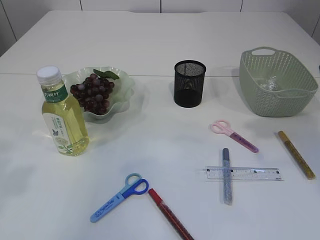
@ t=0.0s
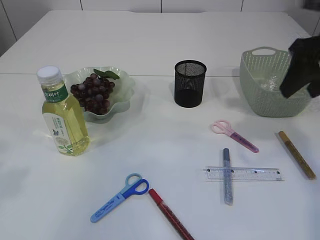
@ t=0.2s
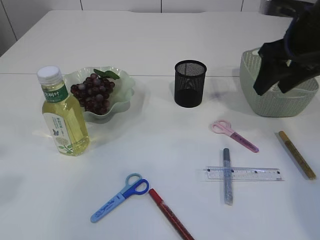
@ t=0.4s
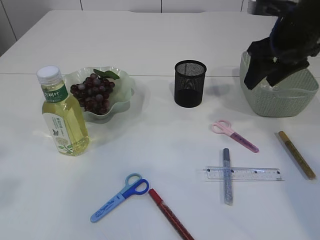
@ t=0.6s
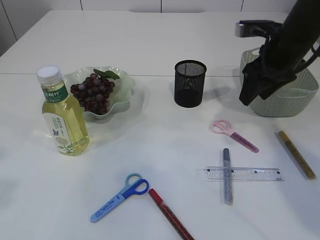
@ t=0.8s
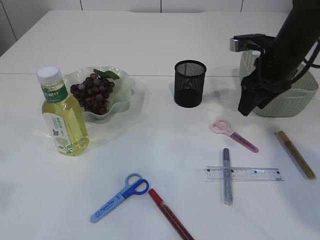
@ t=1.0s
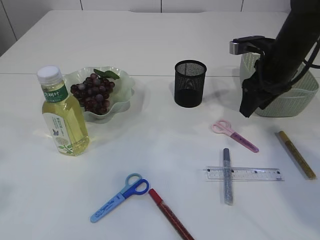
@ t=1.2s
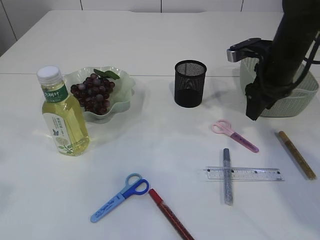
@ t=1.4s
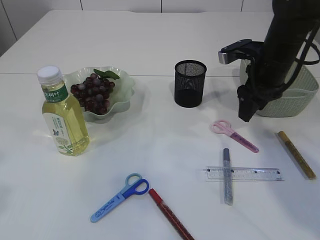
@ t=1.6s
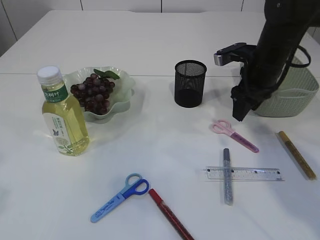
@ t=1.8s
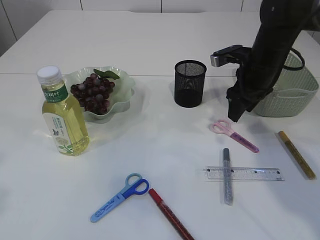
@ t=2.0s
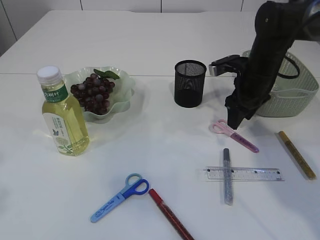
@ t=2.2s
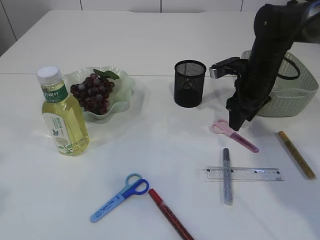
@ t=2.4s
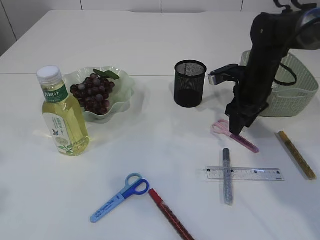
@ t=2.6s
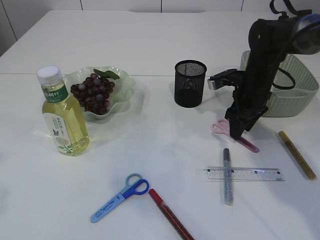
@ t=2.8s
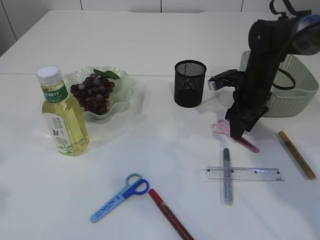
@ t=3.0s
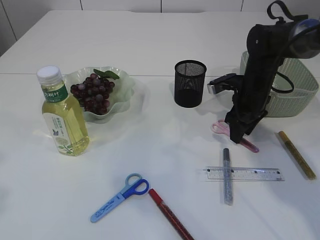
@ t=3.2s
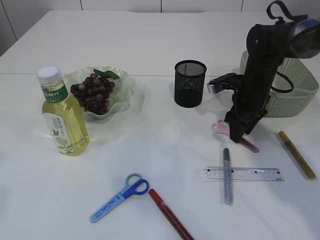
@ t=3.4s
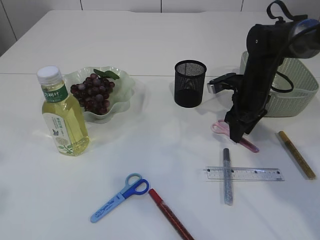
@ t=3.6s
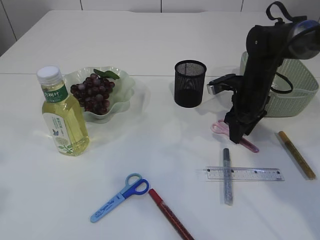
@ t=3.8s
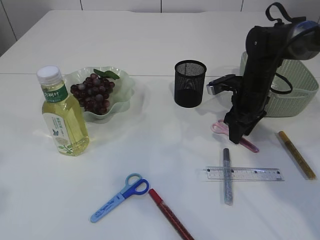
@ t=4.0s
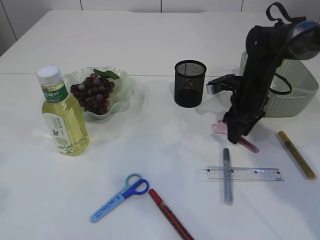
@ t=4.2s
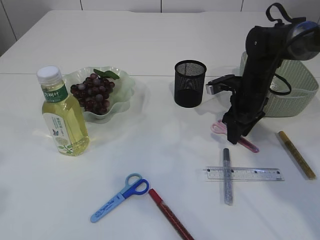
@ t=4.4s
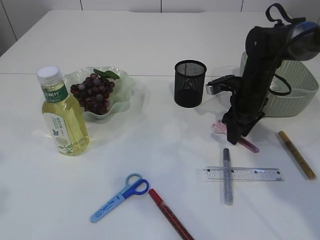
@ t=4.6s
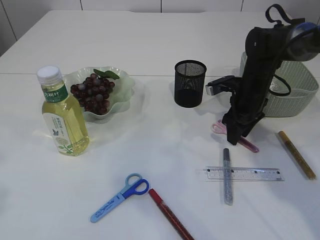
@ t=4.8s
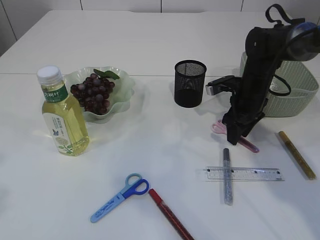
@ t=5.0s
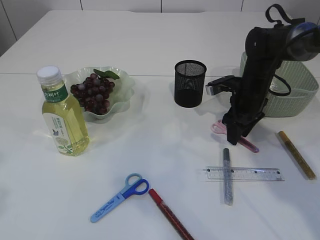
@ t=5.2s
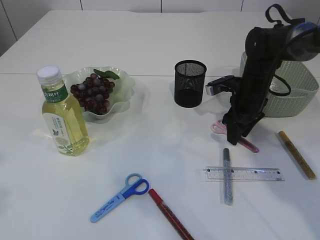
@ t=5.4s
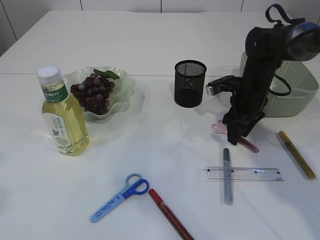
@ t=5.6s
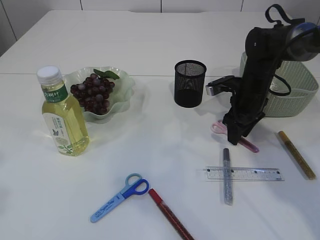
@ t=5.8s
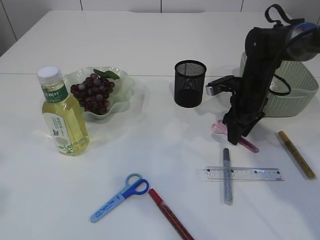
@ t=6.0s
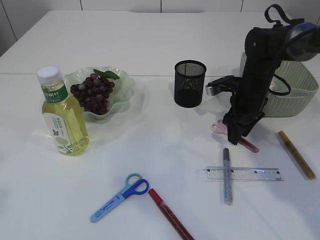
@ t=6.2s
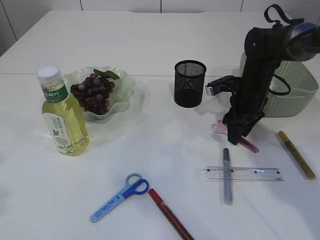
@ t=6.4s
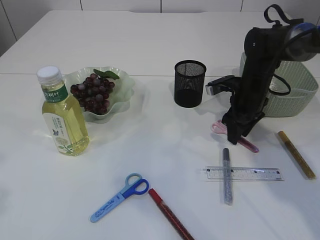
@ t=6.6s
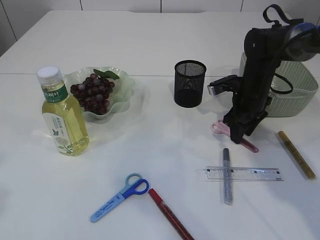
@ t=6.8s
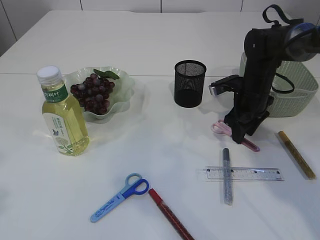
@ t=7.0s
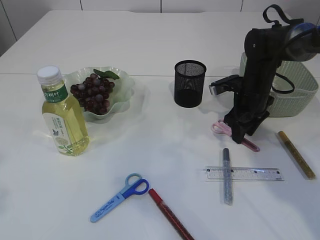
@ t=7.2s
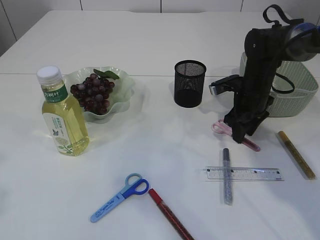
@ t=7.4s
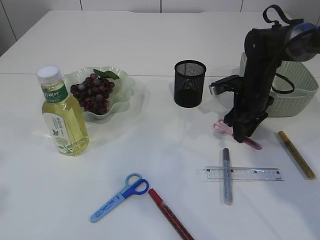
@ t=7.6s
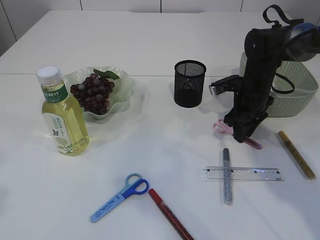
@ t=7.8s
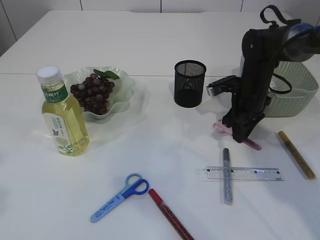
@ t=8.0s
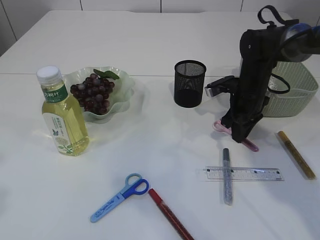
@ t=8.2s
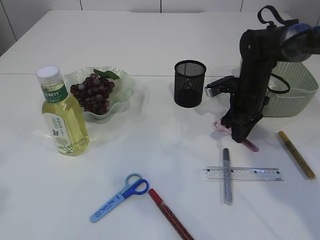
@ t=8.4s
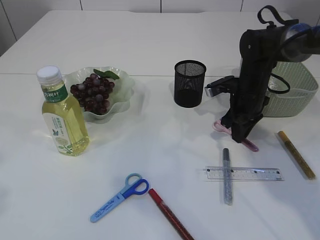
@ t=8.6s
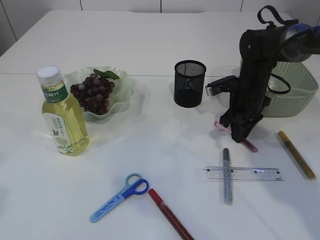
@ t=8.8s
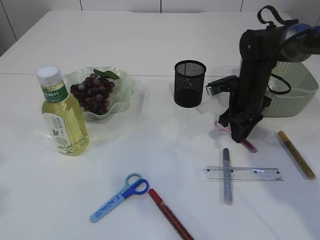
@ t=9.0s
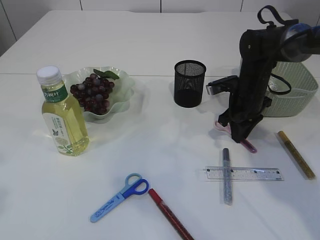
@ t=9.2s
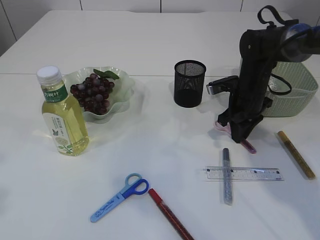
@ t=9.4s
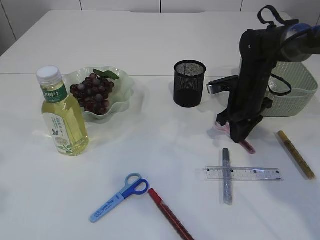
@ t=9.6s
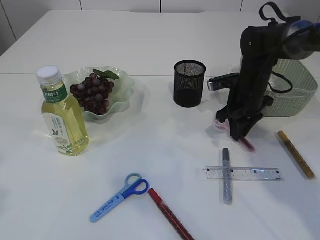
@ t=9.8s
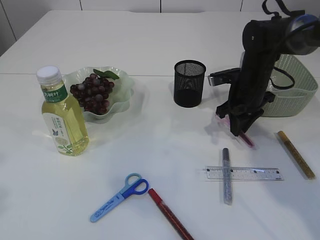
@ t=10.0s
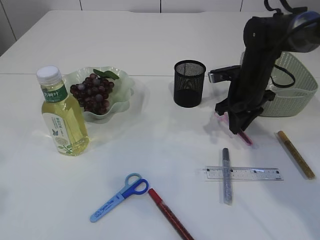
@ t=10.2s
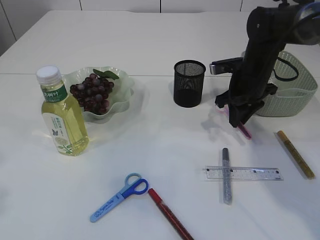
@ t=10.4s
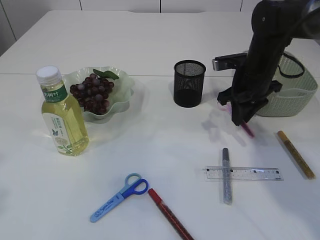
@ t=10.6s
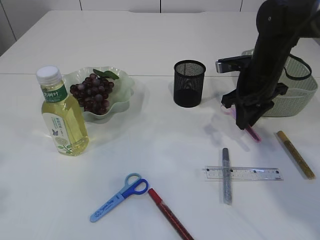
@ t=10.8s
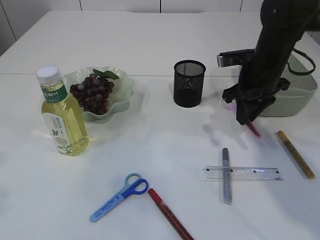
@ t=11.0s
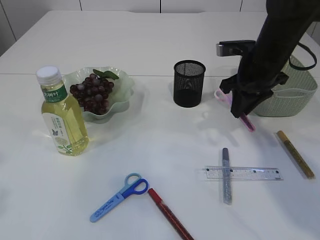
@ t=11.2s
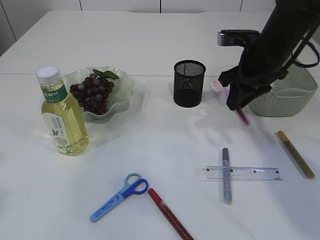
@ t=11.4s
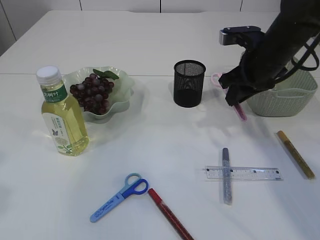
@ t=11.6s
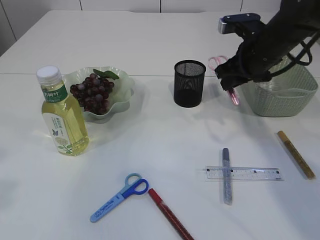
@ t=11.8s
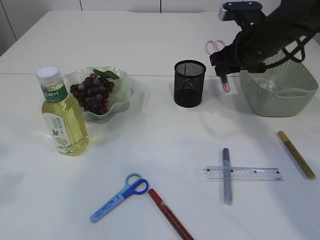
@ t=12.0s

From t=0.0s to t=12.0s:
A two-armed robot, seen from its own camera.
Step, from t=0.0s to t=10.6s: pick up the pink scissors.
From t=0.0s to t=1.6s: The right gripper shifts about 20 cm downward, forward and to the left.
From t=1.6s to t=3.0s: The right gripper heads downward, covering roughly 10 cm.
From t=3.0s to t=4.4s: Neither gripper changes place.
From t=4.4s to t=6.0s: Both grippers stay about where they are.
From t=6.0s to t=7.6s: There are only small adjustments of the grippers.
From t=7.6s to t=9.0s: Both grippers stay about where they are.
From t=9.0s to t=10.4s: There are only small adjustments of the grippers.
From t=10.4s to t=12.0s: The right gripper travels upward by roughly 10 cm.

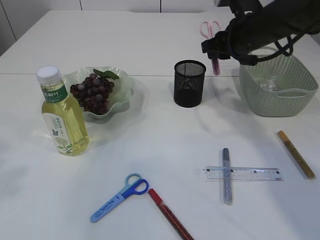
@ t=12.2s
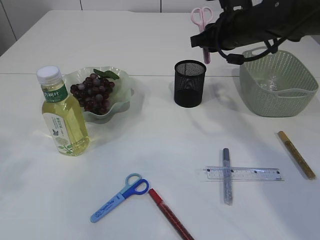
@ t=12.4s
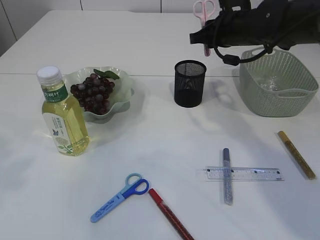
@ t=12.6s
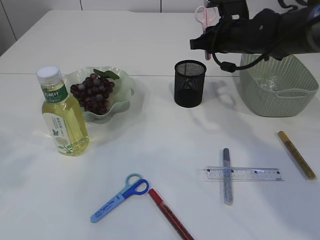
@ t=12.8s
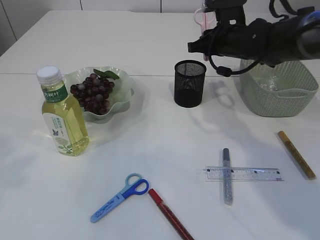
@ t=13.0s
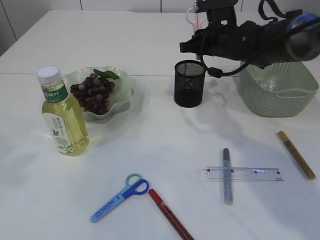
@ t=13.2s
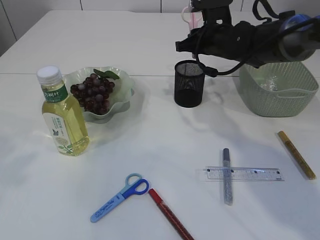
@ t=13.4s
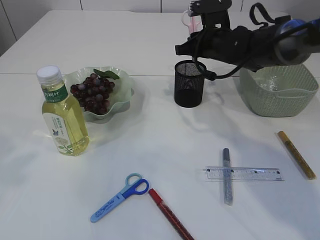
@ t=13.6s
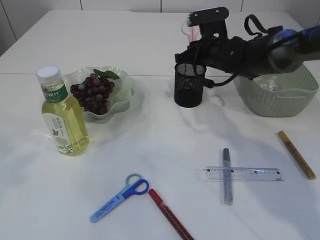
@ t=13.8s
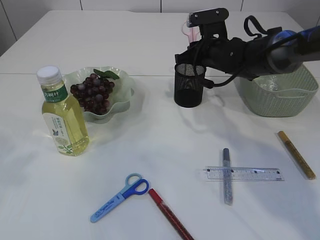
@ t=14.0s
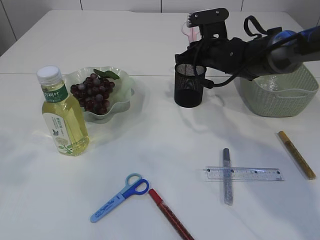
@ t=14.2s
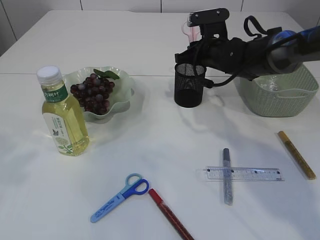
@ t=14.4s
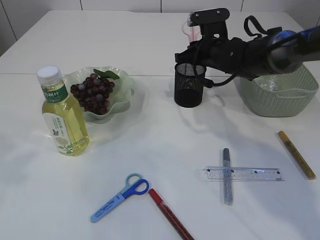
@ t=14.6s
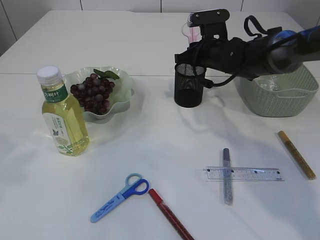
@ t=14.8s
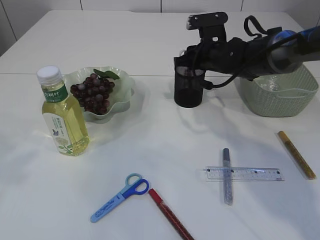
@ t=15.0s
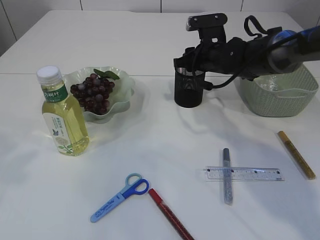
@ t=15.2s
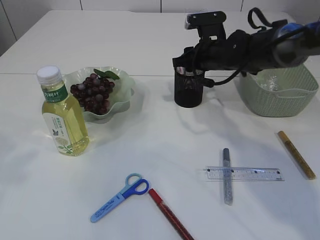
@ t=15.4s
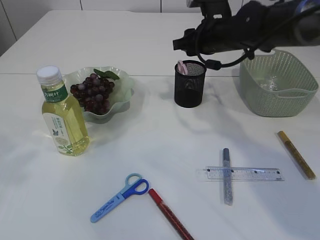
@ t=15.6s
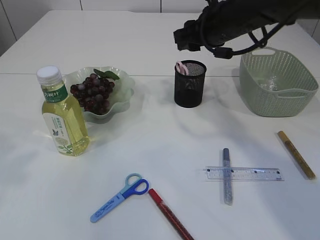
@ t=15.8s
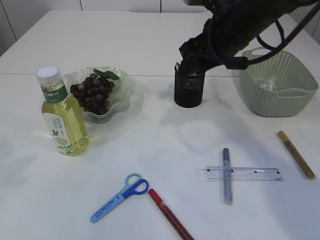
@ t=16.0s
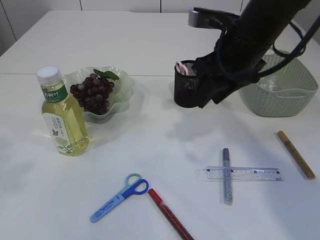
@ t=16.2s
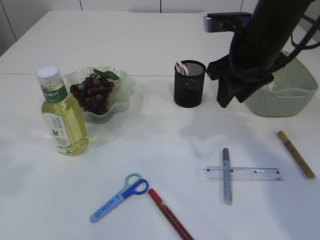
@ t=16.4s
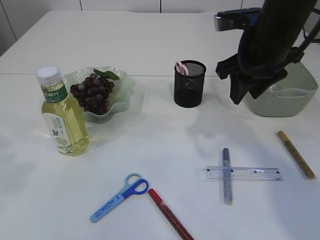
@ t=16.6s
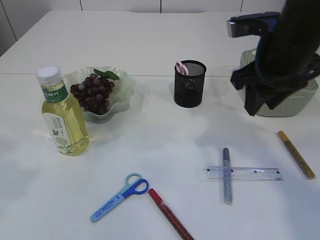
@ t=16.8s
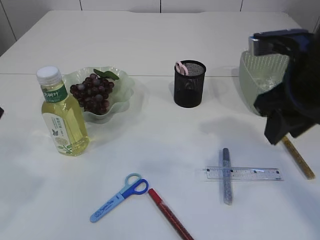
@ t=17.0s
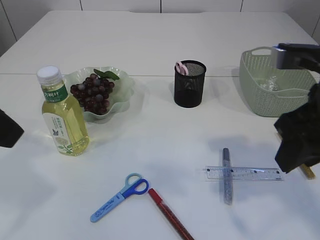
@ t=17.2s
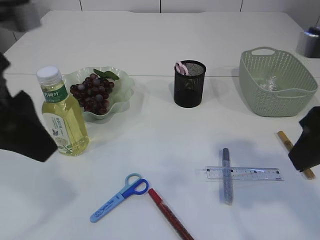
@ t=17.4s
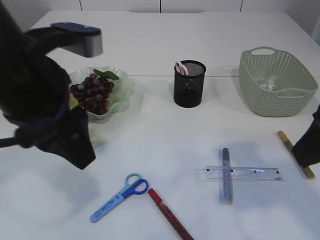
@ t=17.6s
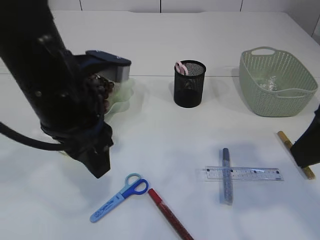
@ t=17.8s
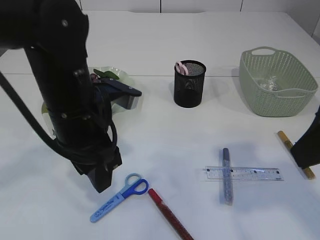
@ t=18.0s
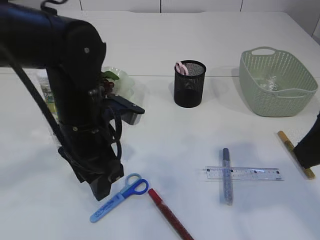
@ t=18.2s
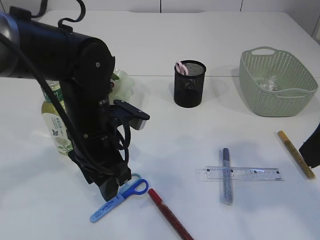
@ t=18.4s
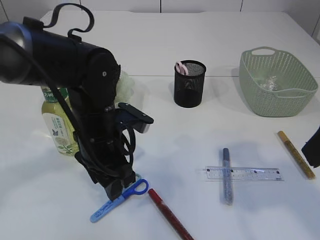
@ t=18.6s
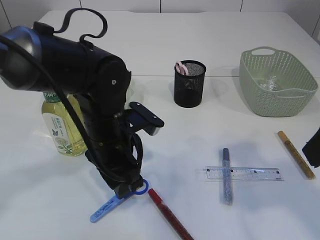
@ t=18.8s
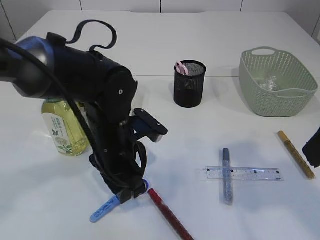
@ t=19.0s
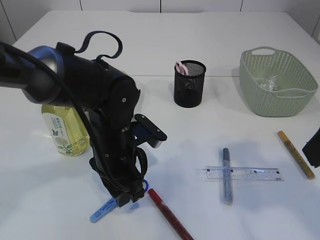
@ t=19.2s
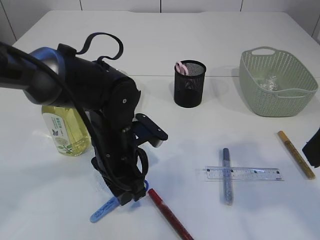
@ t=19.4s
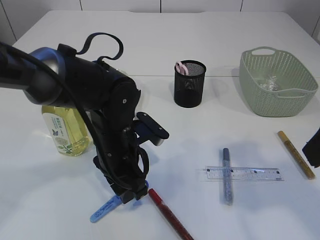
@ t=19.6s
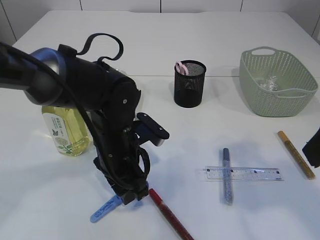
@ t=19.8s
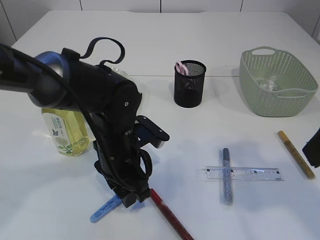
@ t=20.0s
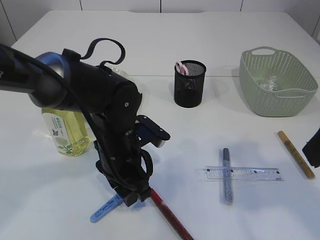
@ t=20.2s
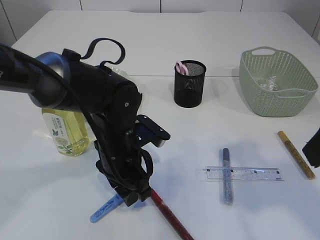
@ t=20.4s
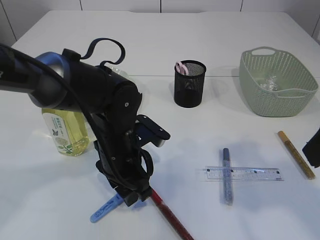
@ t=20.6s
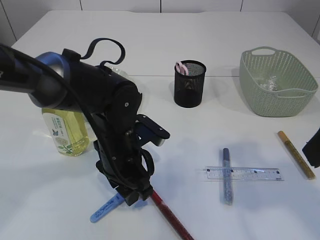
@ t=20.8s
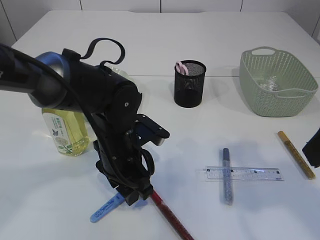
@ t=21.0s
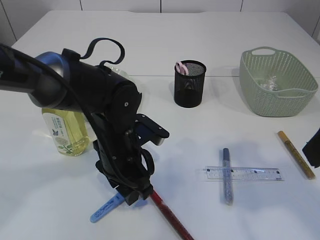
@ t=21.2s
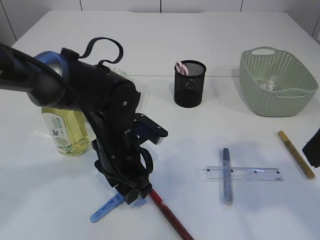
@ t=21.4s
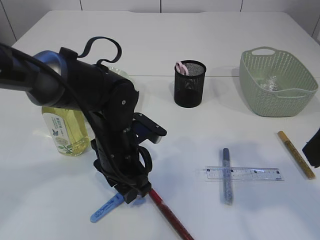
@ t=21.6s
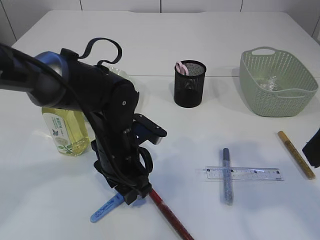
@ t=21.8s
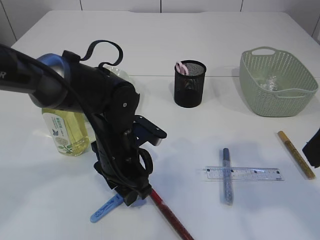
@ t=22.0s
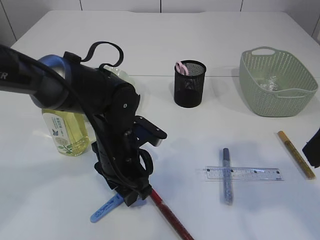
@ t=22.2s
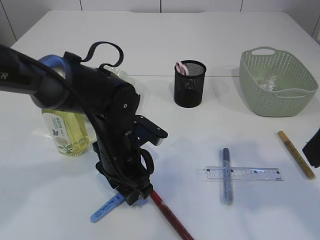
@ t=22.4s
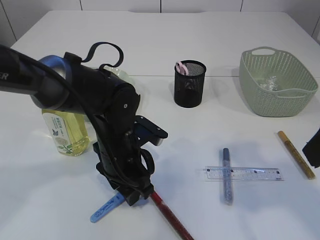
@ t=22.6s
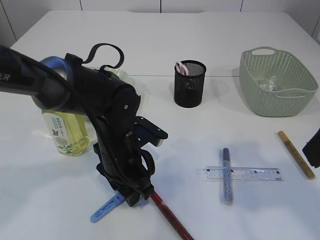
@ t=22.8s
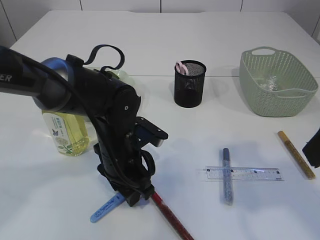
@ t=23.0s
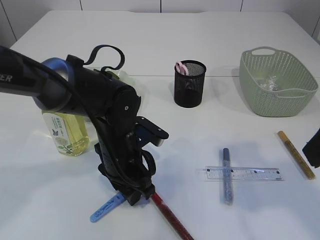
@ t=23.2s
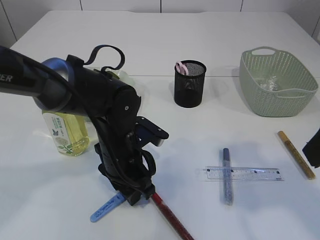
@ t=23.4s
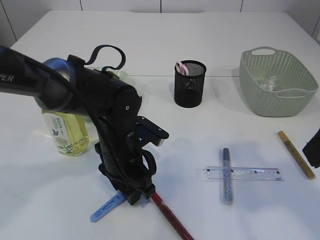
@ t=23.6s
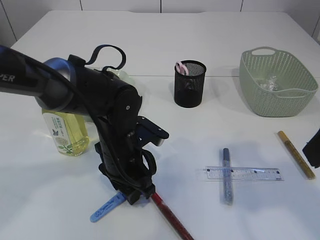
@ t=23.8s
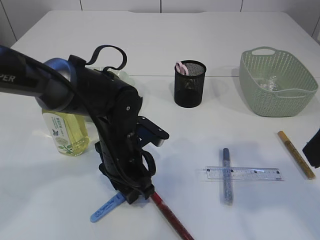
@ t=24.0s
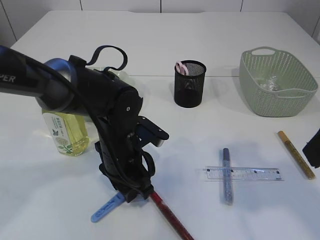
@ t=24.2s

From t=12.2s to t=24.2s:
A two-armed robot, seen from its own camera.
Step, from t=12.2s to t=15.4s: Place the pink scissors into the pen holder.
From t=12.2s to t=13.8s: The right gripper travels downward and forward by some 10 cm.
From t=13.8s to t=15.2s: The grippers make only small movements.
From t=15.2s to t=16.6s: The right gripper is displaced backward and upward by some 15 cm.
From t=16.6s to t=18.2s: The right gripper heads backward, covering approximately 20 cm, while the left gripper travels downward, to the right and forward by roughly 25 cm.
From t=18.2s to t=19.8s: The left gripper is displaced downward by roughly 5 cm.
From t=19.8s to t=21.2s: There are only small adjustments of the grippers.
From t=21.2s to t=22.6s: Both grippers stay put.
From t=22.6s to t=24.2s: The two grippers keep their place.
